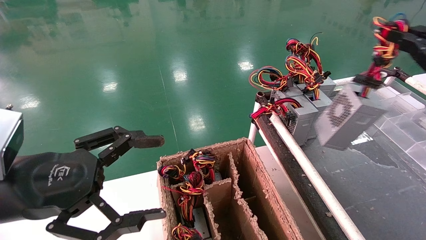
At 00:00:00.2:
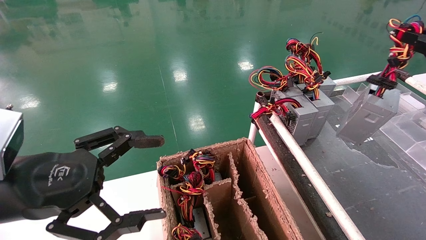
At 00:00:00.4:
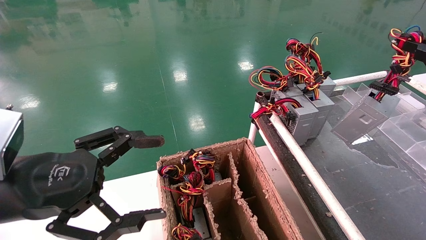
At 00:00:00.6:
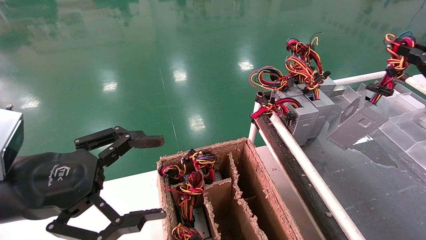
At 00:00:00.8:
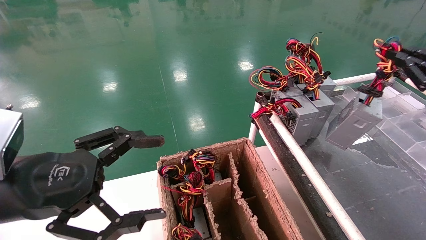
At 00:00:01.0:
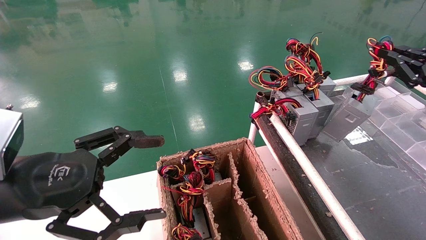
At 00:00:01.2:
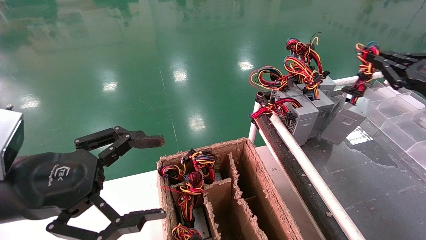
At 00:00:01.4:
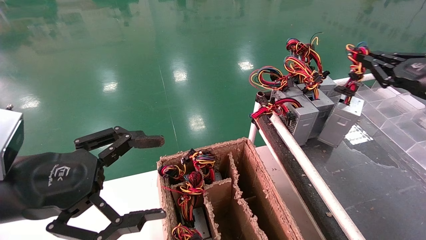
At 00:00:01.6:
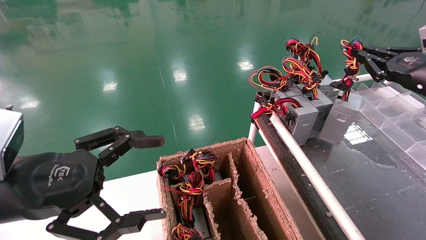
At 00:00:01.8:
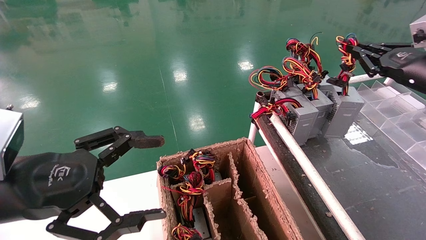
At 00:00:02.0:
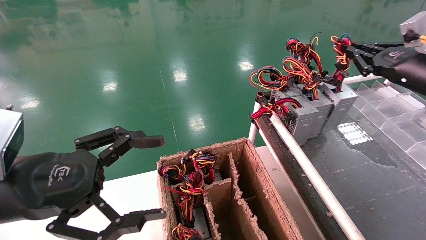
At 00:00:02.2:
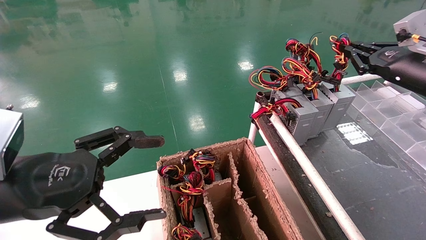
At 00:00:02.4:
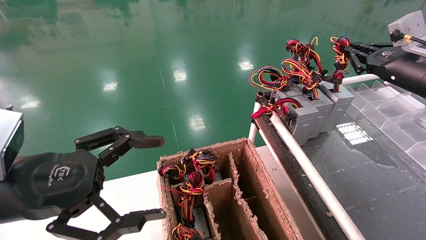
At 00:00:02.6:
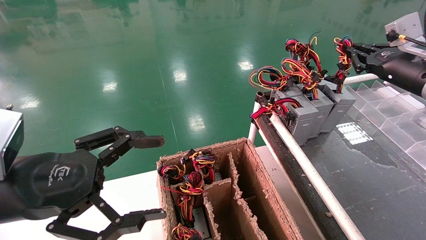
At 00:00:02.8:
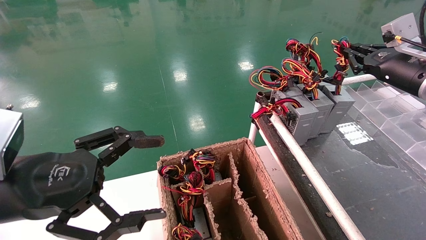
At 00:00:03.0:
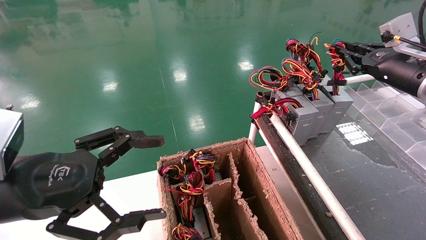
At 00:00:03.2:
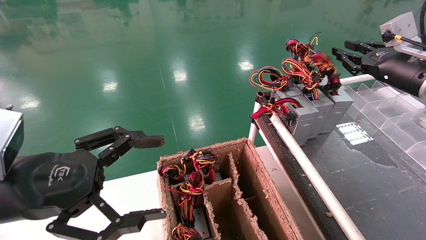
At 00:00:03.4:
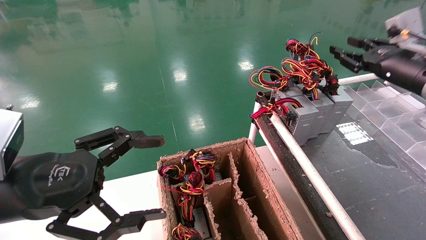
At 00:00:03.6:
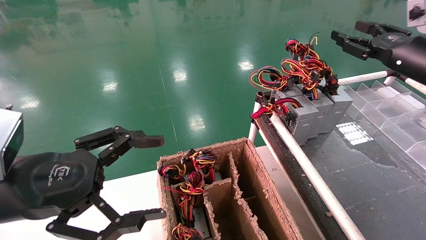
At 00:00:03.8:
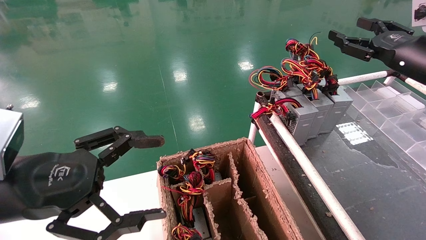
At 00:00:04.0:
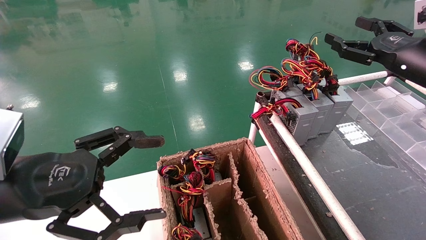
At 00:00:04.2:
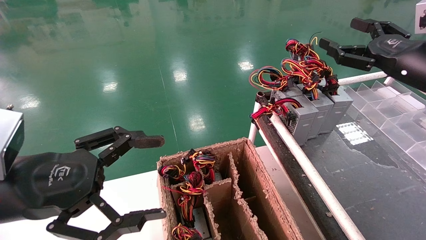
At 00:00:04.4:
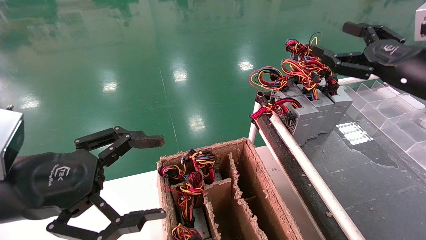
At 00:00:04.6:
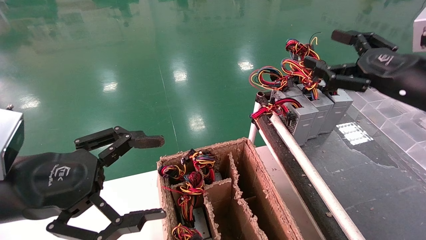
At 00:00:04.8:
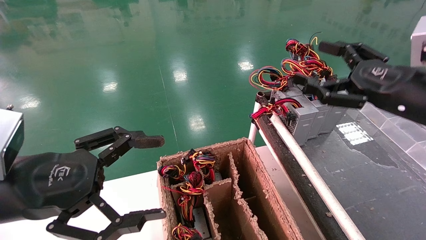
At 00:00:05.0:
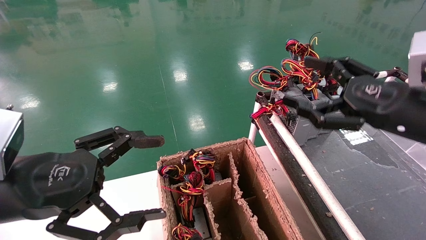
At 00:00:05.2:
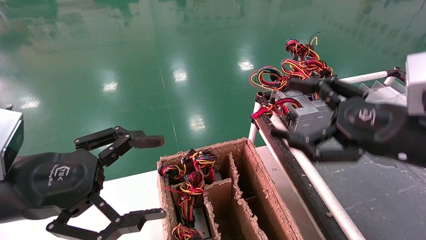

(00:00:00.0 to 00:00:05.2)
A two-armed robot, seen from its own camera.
Step, 00:00:00.0 - 00:00:03.0: Place the power supply on the operating table.
00:00:00.0 - 00:00:01.8: The right gripper is displaced forward by some 15 cm.
00:00:01.8 - 00:00:03.4: The grippers make only small movements.
00:00:03.4 - 00:00:05.2: The right gripper is displaced backward and to the left by roughly 20 cm, and opens its fingers.

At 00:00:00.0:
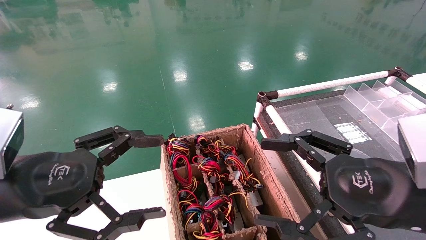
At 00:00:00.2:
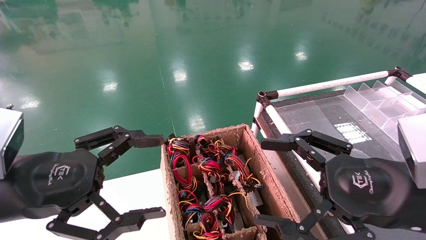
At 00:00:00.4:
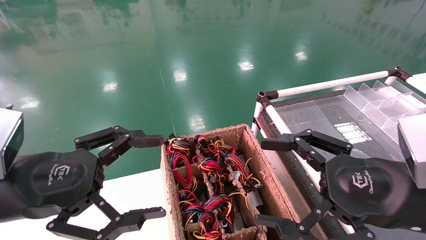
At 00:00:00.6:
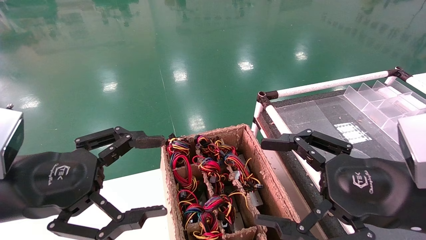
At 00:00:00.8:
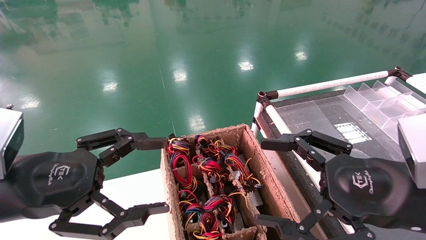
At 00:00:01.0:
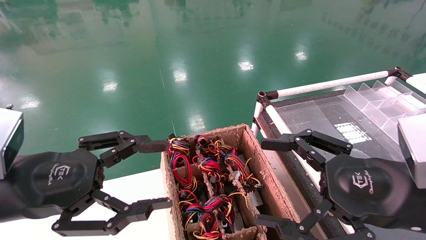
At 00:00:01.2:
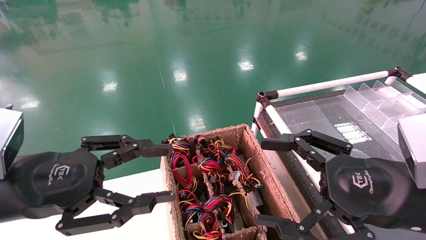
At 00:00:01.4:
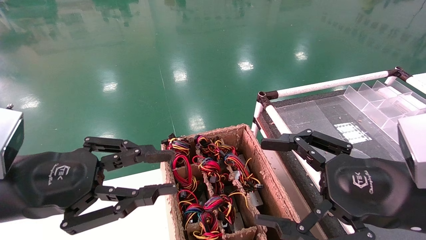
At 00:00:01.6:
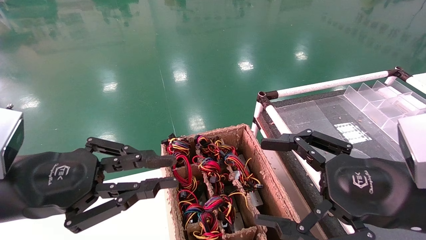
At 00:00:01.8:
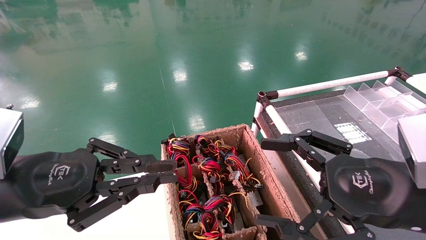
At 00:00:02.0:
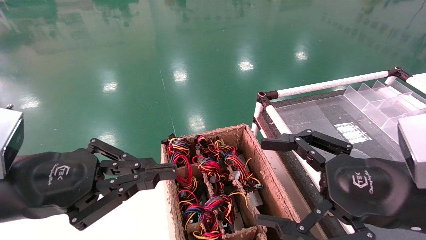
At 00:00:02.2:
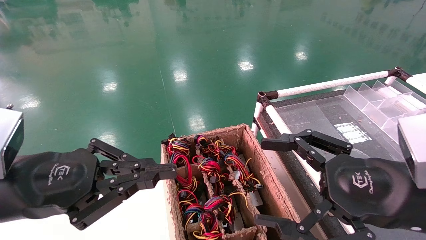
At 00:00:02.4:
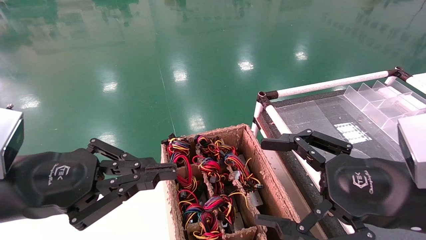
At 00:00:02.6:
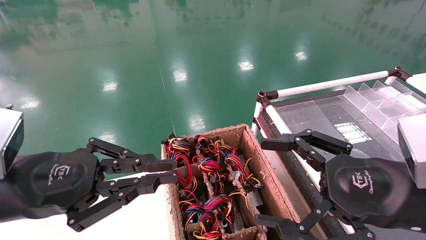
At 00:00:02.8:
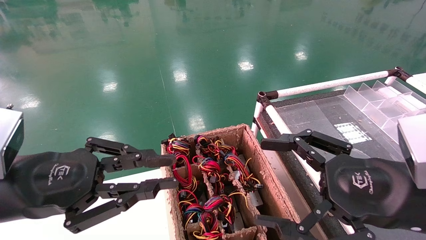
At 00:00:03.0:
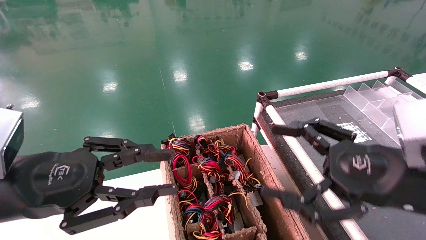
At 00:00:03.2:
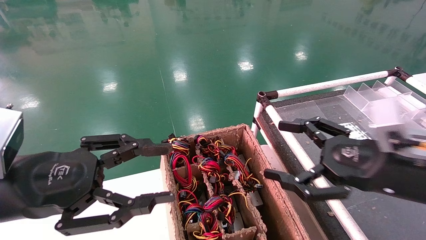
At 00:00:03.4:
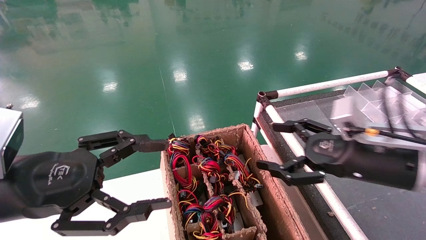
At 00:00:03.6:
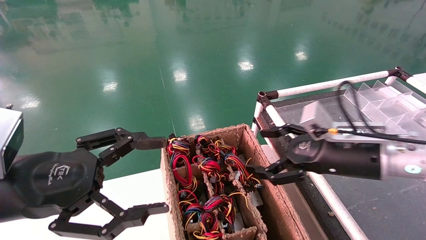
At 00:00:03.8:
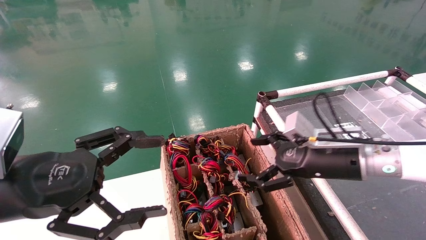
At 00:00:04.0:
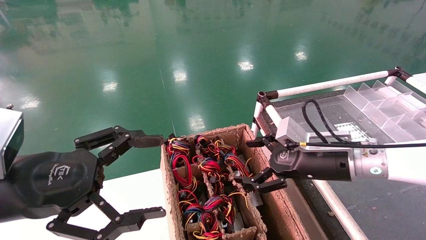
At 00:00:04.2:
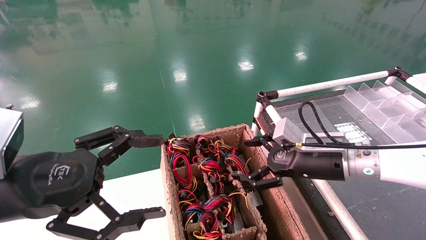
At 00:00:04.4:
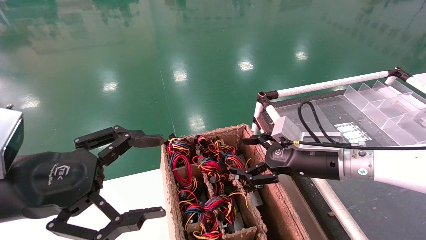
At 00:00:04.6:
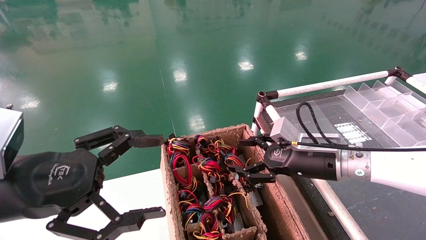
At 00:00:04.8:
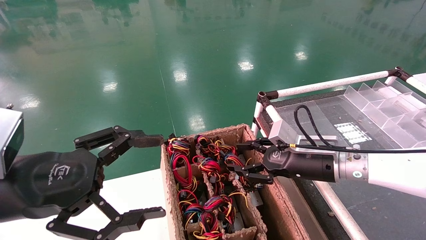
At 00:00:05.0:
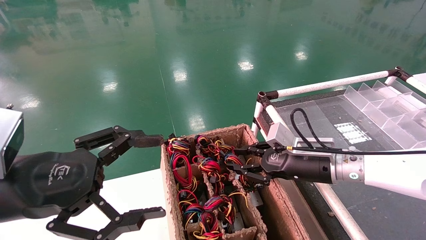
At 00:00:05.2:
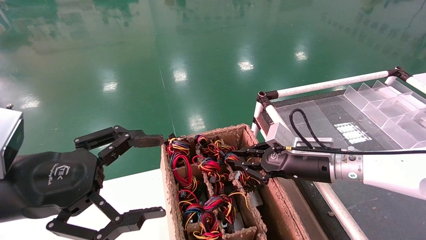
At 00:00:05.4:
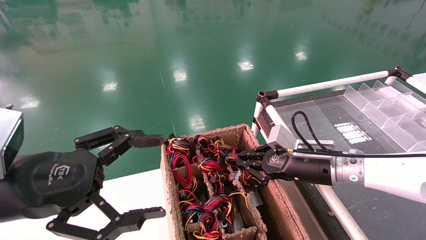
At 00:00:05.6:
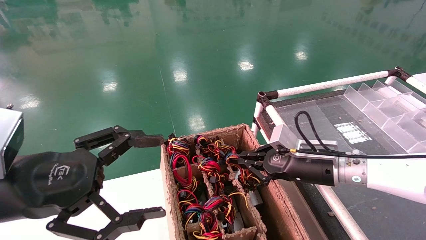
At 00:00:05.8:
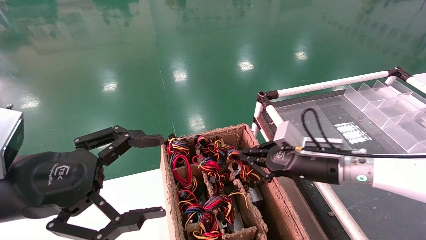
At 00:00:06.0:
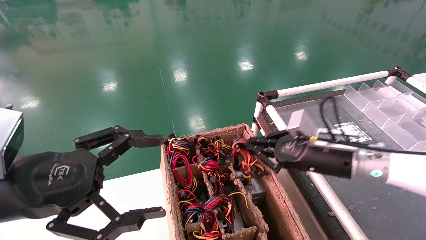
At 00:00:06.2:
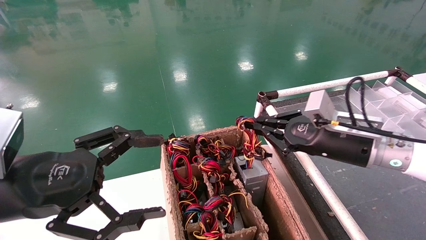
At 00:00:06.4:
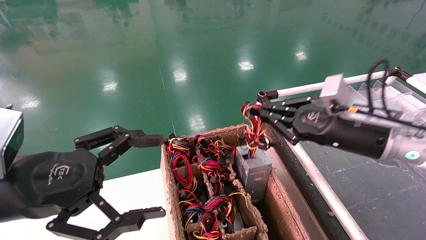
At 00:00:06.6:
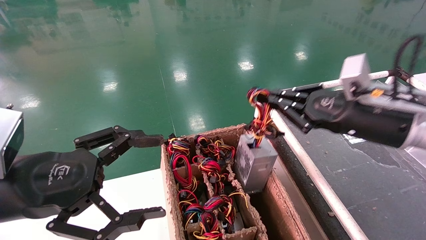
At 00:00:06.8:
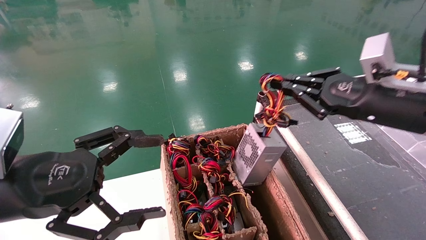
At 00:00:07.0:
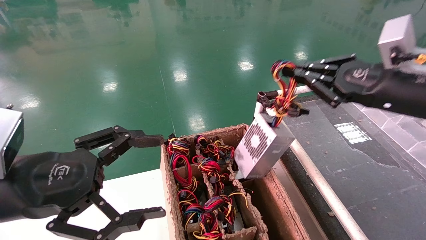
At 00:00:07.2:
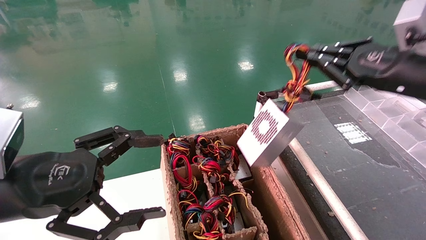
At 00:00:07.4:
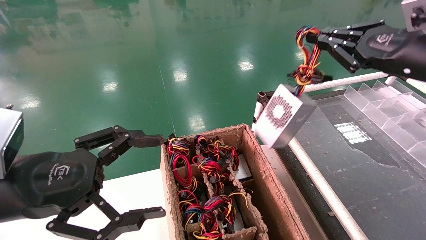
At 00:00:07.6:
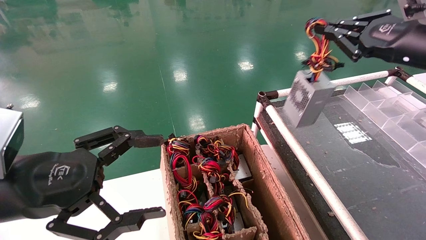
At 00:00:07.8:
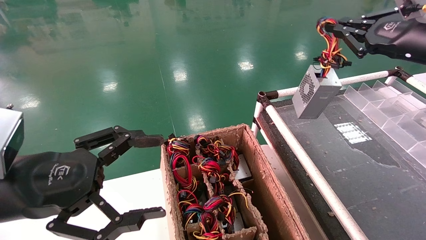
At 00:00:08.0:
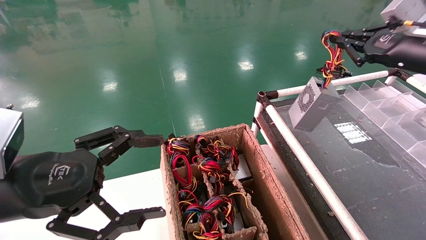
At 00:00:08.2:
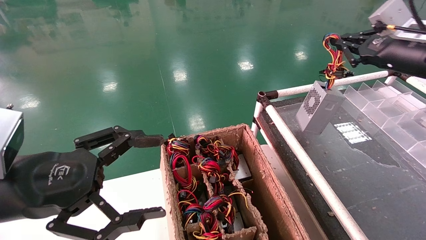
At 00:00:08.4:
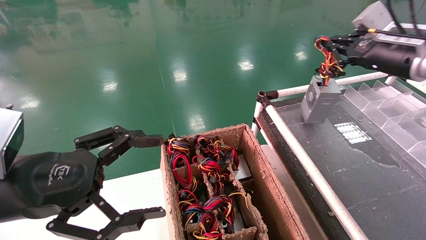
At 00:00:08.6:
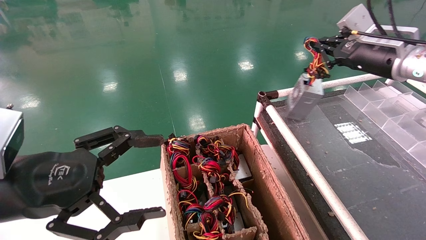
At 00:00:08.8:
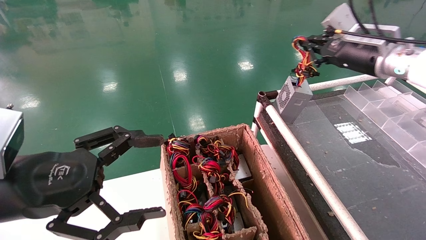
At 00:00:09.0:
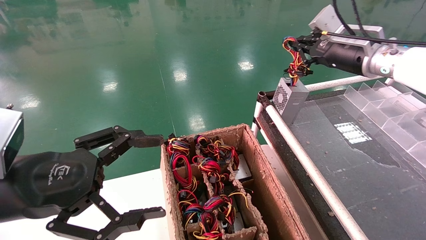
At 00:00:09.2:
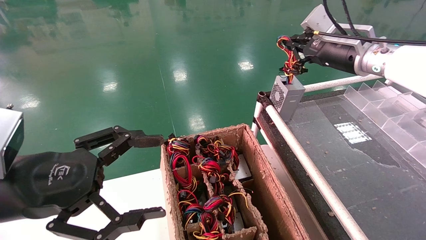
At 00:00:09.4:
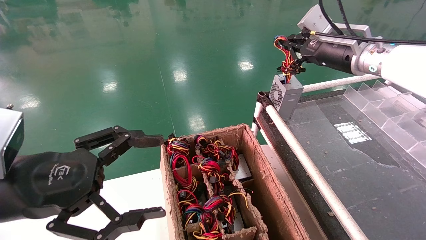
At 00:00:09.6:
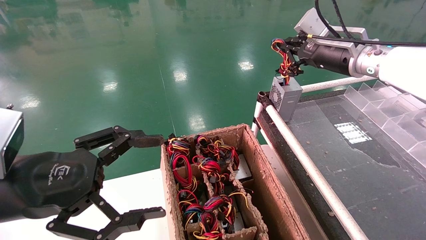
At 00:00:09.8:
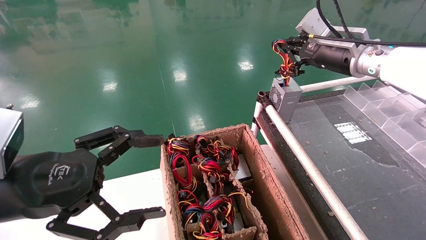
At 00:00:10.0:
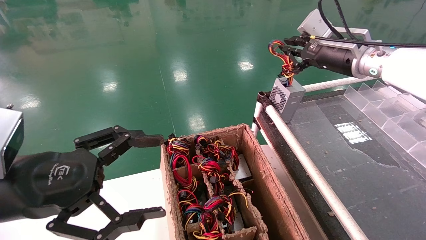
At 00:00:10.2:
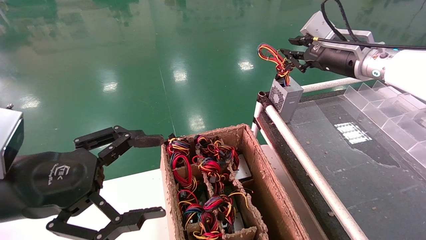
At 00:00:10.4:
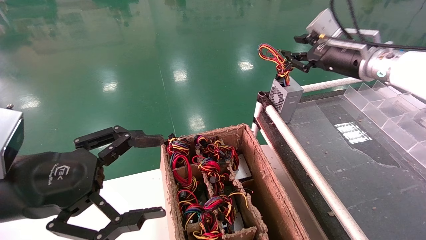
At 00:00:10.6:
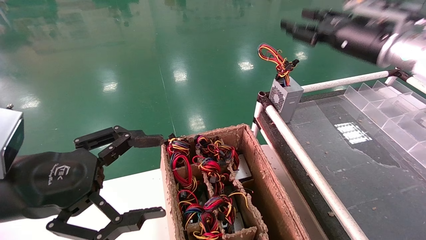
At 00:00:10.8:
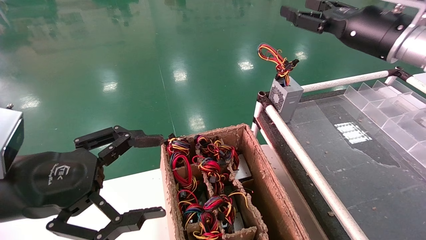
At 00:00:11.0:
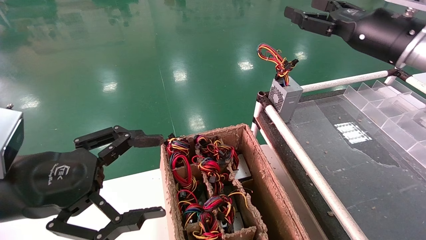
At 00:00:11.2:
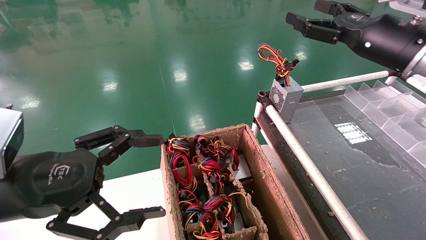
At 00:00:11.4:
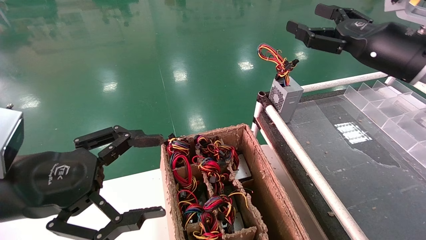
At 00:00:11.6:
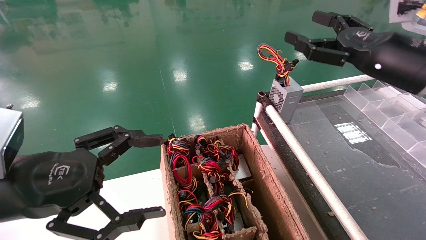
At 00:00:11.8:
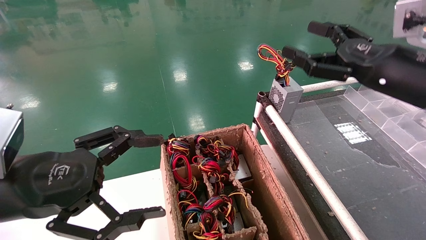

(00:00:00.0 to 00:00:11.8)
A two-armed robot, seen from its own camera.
Step, 00:00:02.0 - 00:00:05.6: Grab and lift the power supply from the large box.
Step, 00:00:05.8 - 00:00:10.0: Place the power supply on the operating table.
00:00:00.0 - 00:00:01.4: The left gripper closes its fingers.
00:00:01.4 - 00:00:03.0: The grippers move only a little.
00:00:03.0 - 00:00:04.4: The right gripper is displaced forward by about 15 cm, while the left gripper opens.
00:00:04.4 - 00:00:06.0: The right gripper closes its fingers.
00:00:06.0 - 00:00:07.4: The right gripper goes roughly 20 cm upward and to the right.
00:00:07.4 - 00:00:08.8: The right gripper travels forward by some 10 cm.
00:00:08.8 - 00:00:10.4: The grippers stay close to where they were, moving slightly.
00:00:10.4 - 00:00:11.8: The right gripper moves backward, some 10 cm, and opens up.
